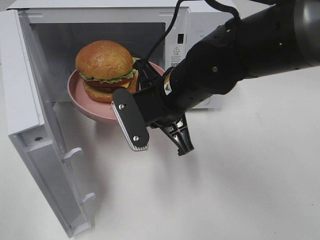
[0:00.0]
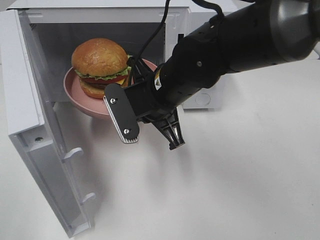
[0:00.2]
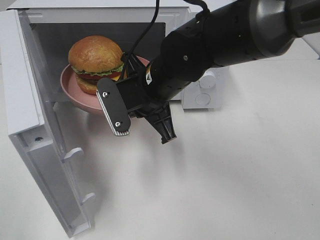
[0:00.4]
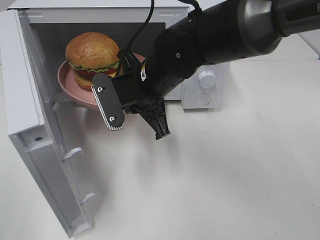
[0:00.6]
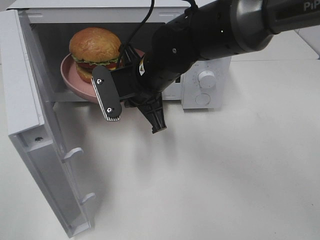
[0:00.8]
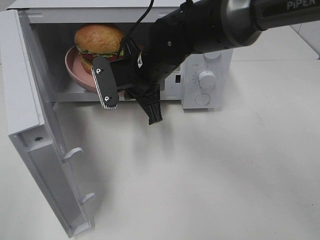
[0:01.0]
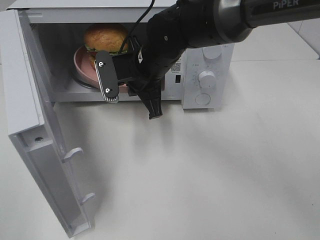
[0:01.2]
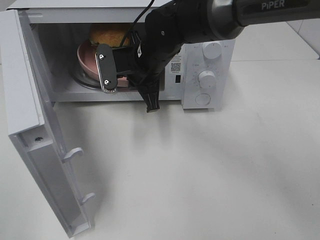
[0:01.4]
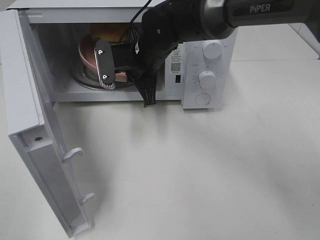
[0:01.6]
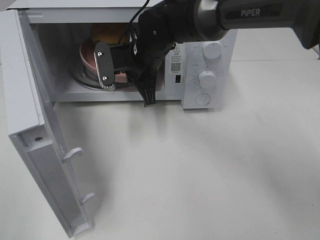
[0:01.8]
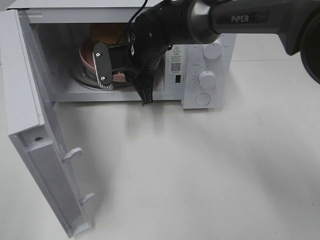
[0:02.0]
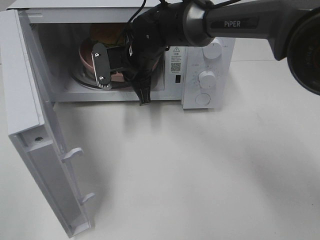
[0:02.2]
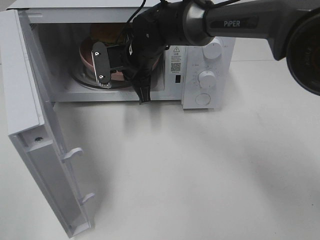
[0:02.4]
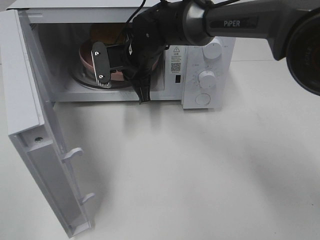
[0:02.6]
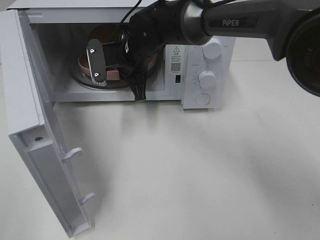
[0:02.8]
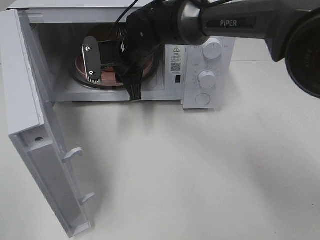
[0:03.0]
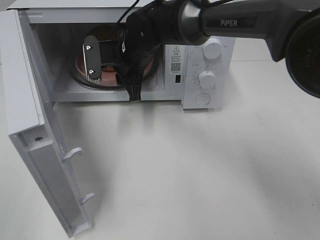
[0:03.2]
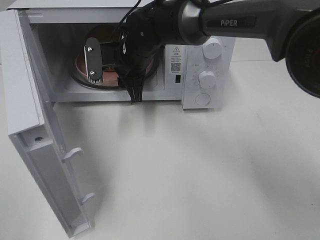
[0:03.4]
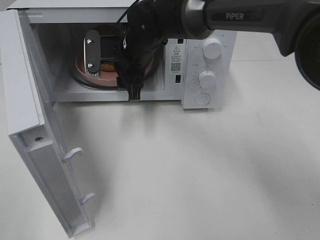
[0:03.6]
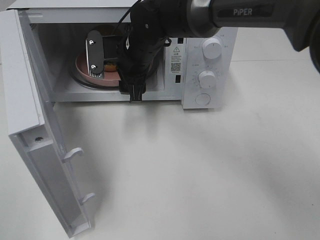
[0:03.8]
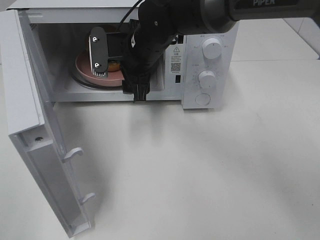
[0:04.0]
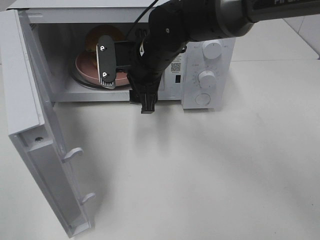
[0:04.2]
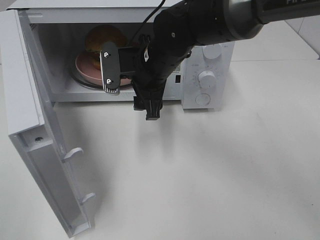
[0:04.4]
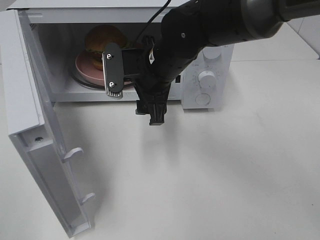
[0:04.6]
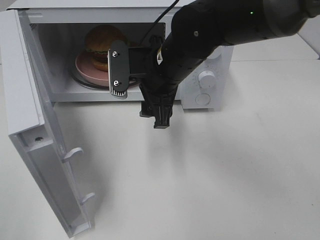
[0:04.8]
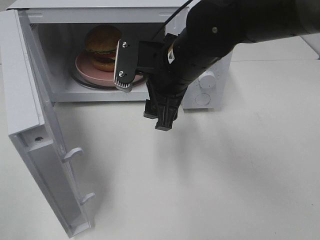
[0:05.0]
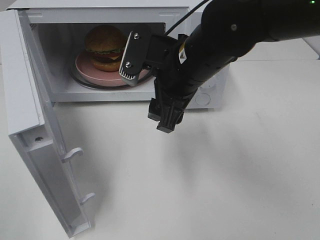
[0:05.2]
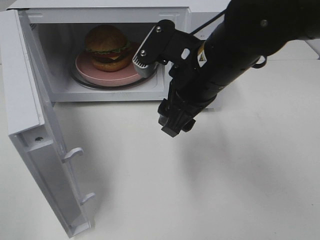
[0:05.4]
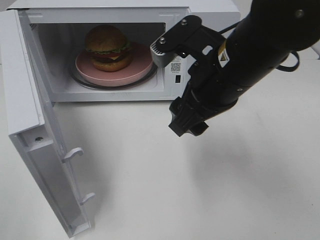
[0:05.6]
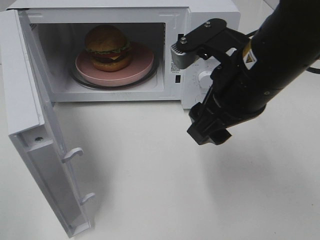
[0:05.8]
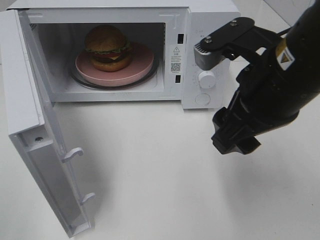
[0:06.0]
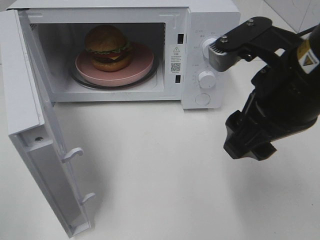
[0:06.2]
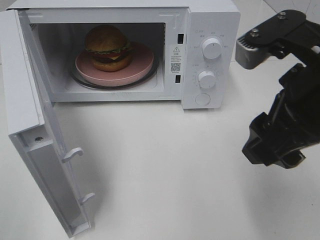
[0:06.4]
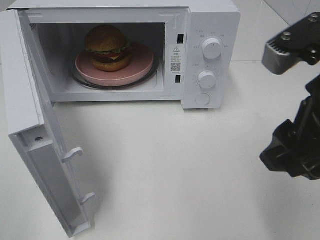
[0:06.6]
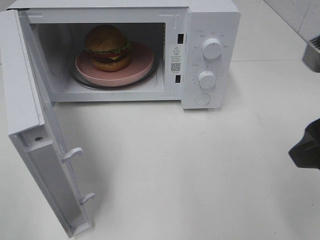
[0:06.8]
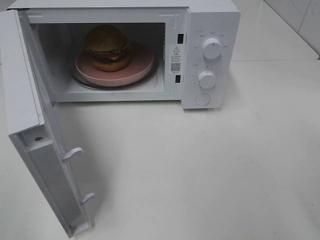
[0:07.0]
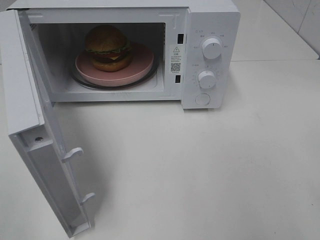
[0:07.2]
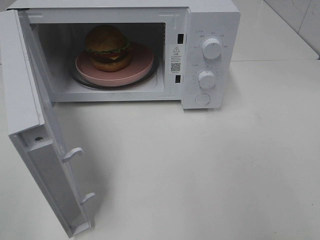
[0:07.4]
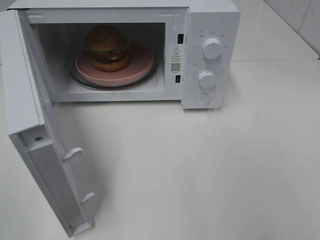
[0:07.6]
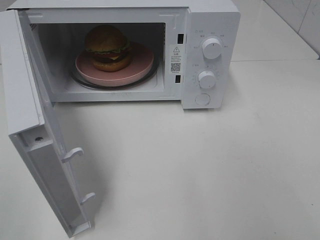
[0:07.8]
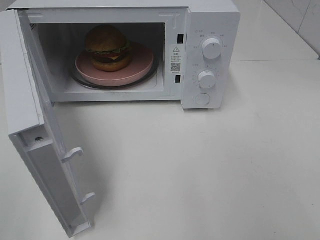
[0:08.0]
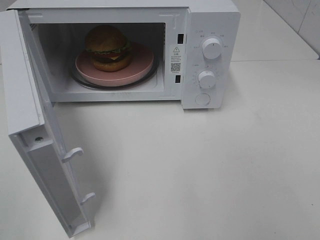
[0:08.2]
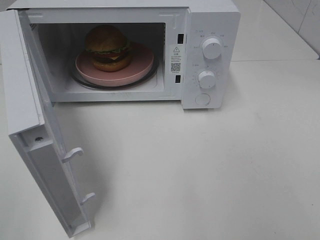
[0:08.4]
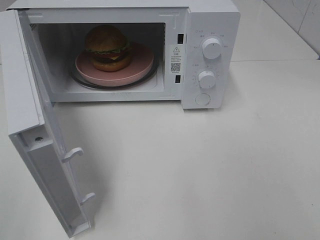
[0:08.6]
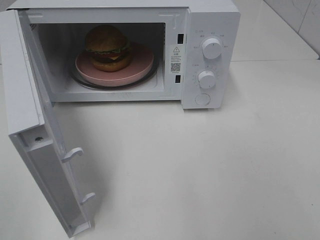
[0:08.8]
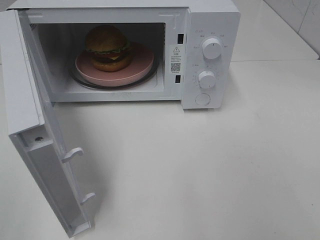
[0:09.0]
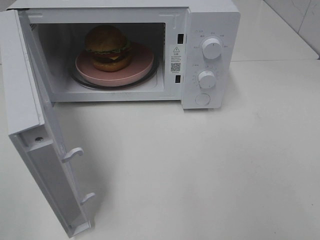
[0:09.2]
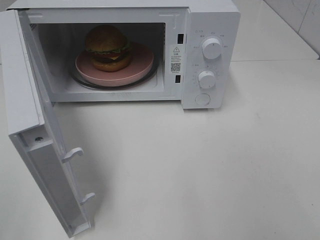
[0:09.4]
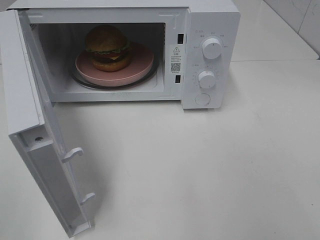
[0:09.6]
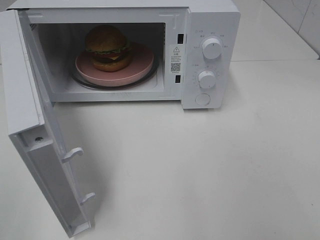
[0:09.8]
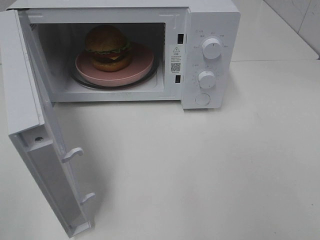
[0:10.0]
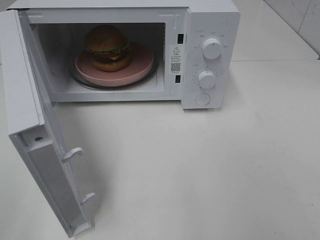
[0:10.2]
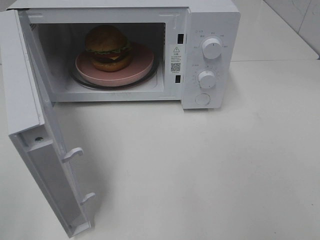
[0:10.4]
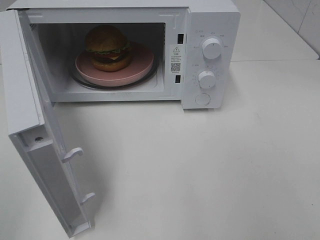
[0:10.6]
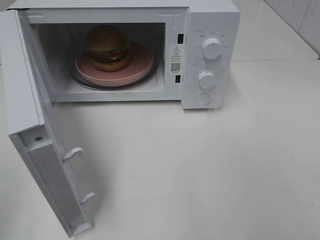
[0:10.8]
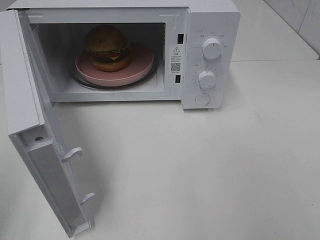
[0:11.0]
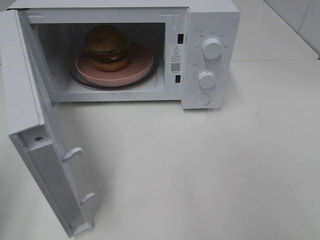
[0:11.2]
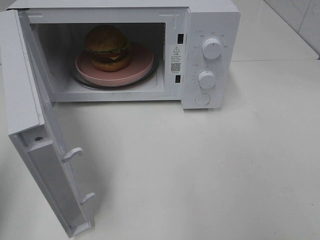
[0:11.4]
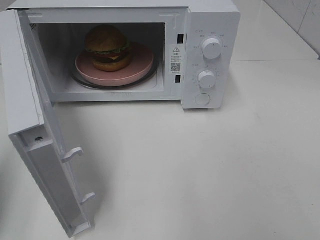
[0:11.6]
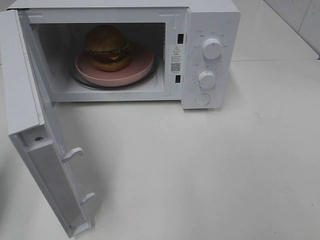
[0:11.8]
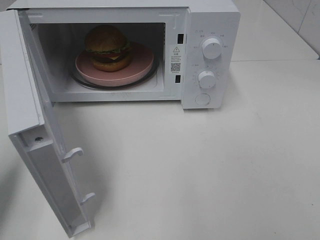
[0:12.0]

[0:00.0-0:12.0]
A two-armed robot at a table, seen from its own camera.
Task of the whole recording: Heat the burger.
Step, 0:00.0 to 0:03.2: Right hand: place the plate in the microwave.
0:00.0 to 0:01.6: The right gripper is displaced forward by some 10 cm.
0:01.6 to 0:03.0: There are only small adjustments of the grippers.
0:03.0 to 0:04.4: The right gripper shifts approximately 5 cm backward, and opens up.
0:04.4 to 0:06.0: The right gripper heads backward, to the right and upward, covering roughly 20 cm.
0:06.0 to 0:07.6: The right gripper goes some 25 cm to the right and backward.
0:09.0 to 0:10.4: Neither gripper changes place.
0:10.4 to 0:12.0: The left gripper is displaced forward and downward by approximately 15 cm, and closes its fingers.

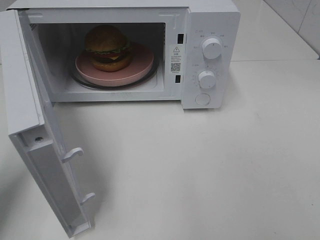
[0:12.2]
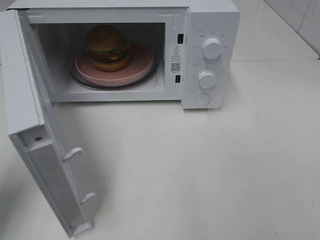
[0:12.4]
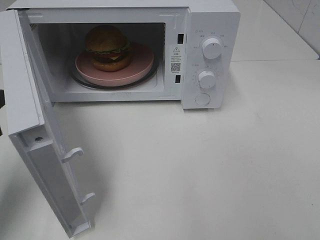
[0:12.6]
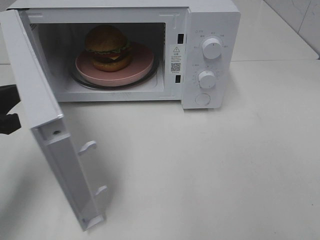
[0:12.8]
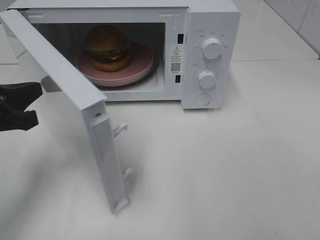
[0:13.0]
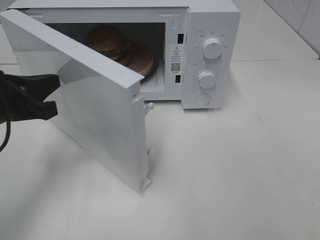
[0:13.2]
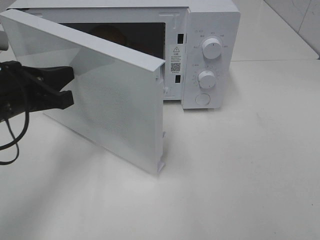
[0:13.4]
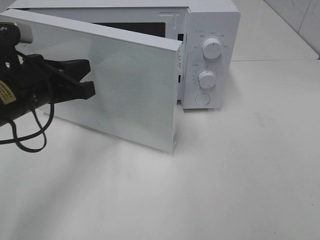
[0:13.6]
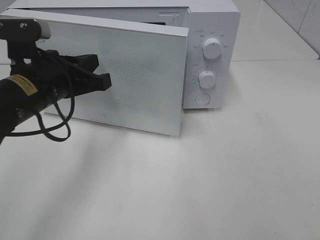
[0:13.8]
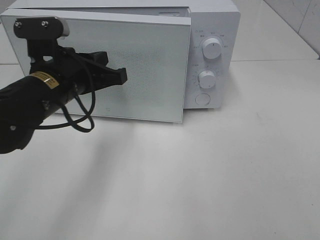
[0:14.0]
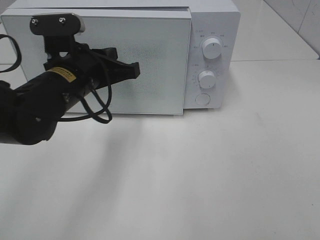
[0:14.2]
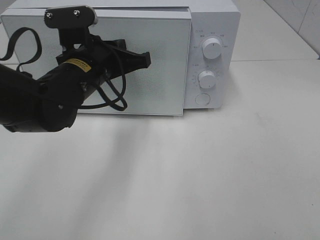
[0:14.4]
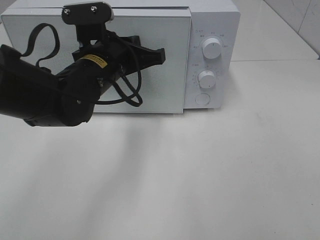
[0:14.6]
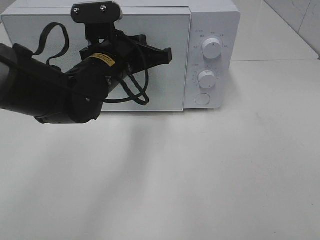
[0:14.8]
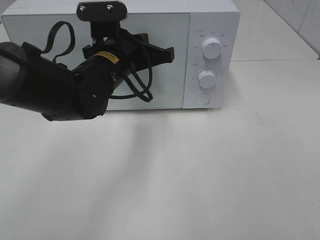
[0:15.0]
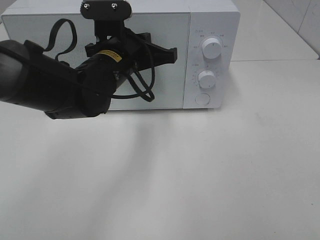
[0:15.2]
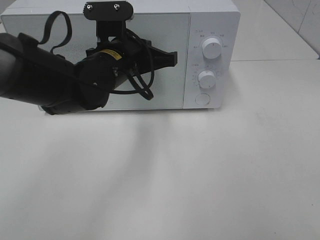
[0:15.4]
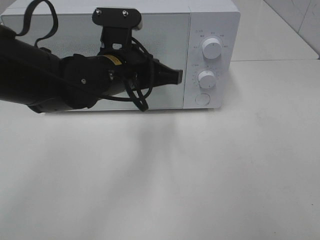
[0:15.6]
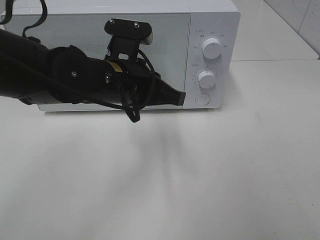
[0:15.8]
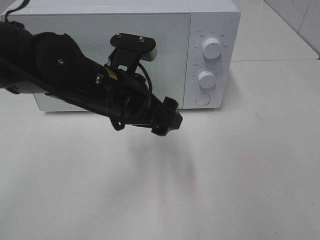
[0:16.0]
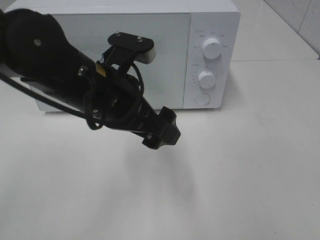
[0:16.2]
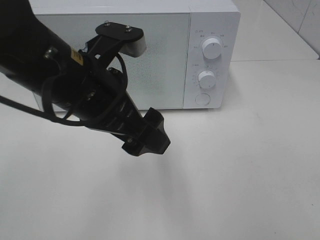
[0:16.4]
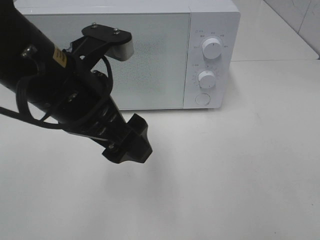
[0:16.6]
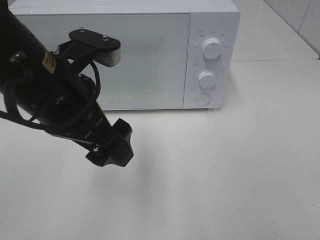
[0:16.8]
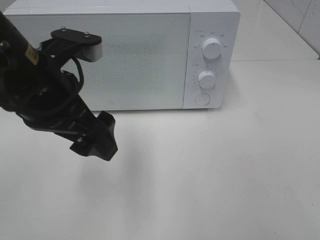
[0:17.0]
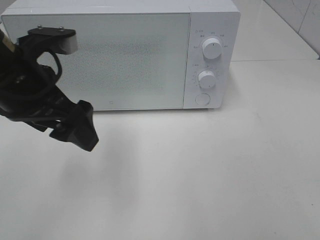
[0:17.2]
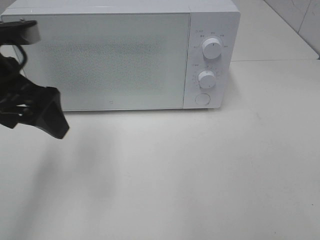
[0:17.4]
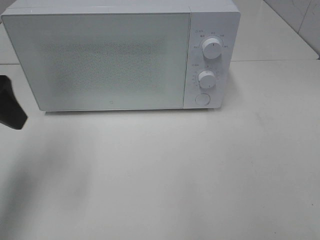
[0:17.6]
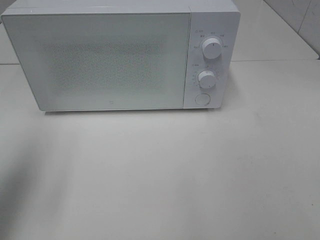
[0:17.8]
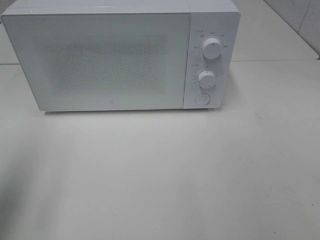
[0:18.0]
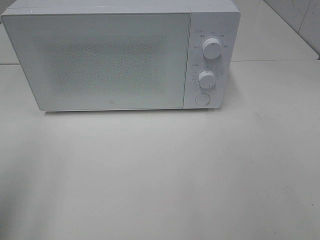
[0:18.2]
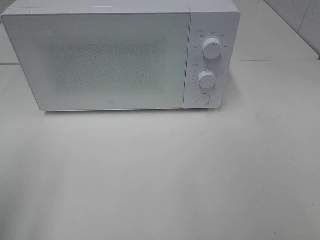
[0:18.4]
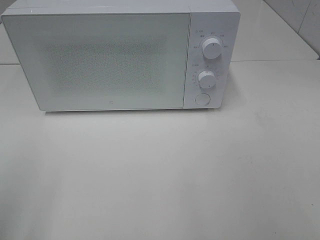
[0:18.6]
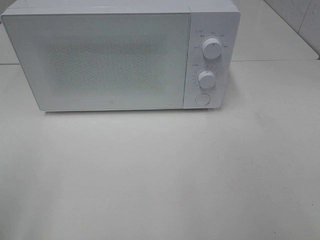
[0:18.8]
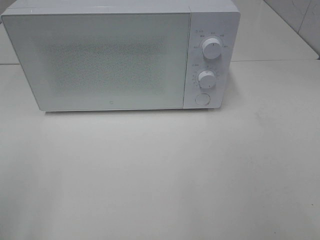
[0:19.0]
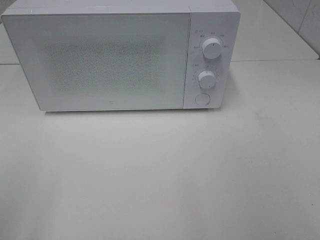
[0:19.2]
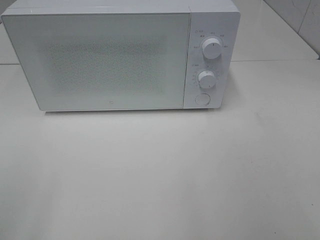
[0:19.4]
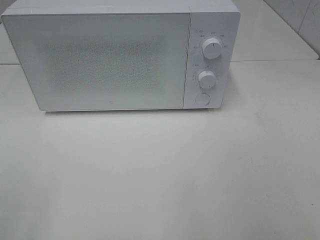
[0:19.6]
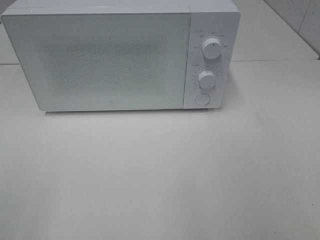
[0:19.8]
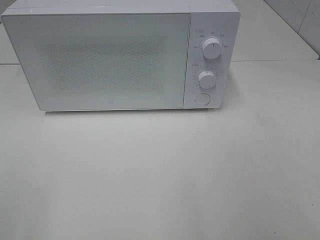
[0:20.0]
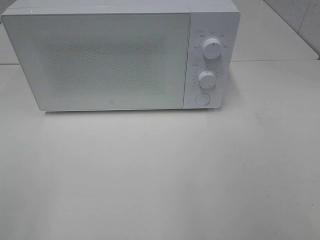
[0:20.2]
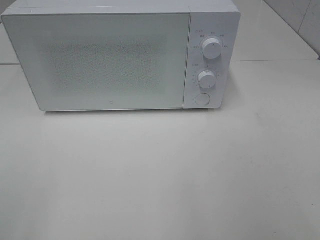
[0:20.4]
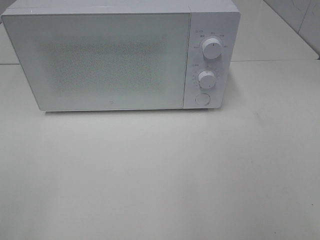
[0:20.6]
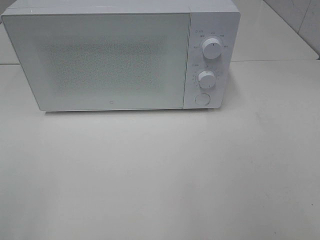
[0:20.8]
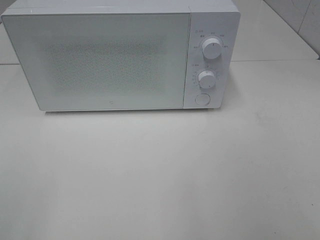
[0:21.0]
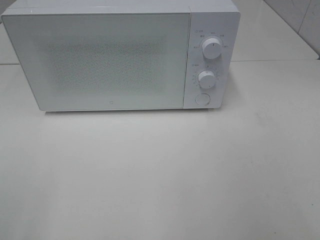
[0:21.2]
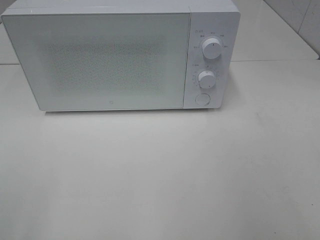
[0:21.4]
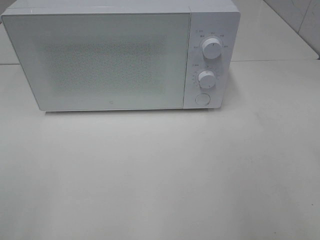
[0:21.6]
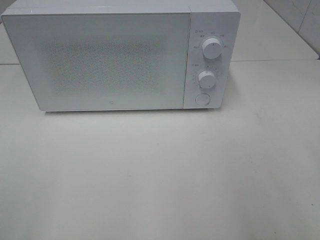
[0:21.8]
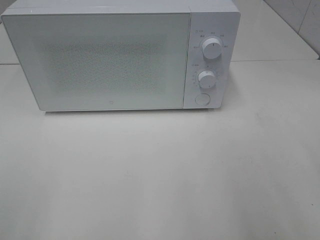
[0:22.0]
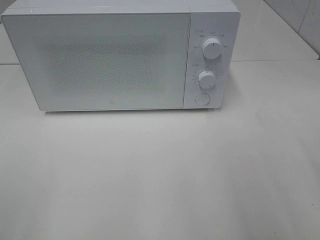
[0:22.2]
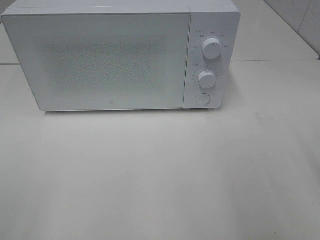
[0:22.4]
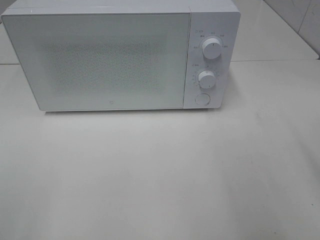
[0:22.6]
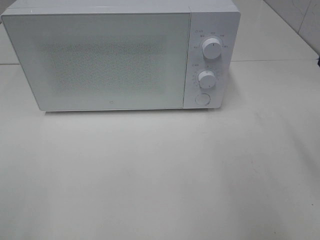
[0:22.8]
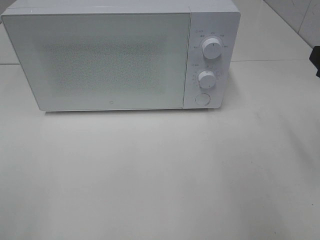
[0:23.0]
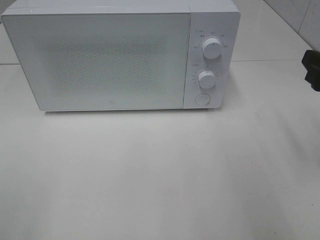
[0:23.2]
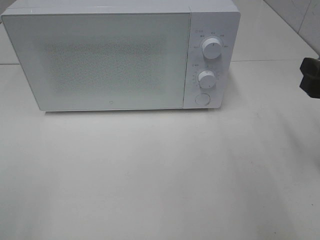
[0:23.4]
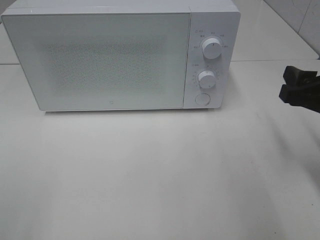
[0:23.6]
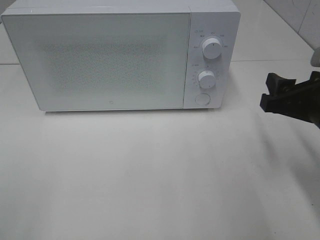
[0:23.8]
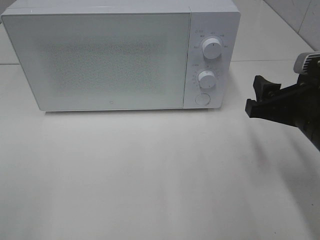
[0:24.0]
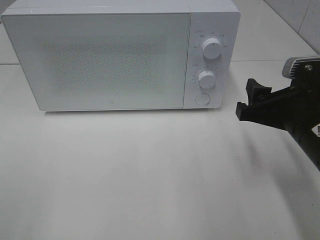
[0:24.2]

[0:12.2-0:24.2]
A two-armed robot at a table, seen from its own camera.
Task of the whole recording: Heat the burger.
Step, 0:12.2 to 0:15.4: Left hand: close the microwave door.
0:12.2 to 0:13.8: The left gripper heads to the right and forward, covering roughly 20 cm.
0:13.8 to 0:15.2: The left gripper heads to the right and forward, covering some 10 cm.
0:15.2 to 0:16.6: The left gripper heads backward and upward, covering about 15 cm, and opens.
0:16.6 to 0:18.2: The left gripper shifts approximately 25 cm to the left and backward.
0:18.2 to 0:19.8: The left gripper goes some 10 cm backward.
0:22.6 to 0:24.2: The right gripper travels downward, to the left and forward by about 15 cm.
